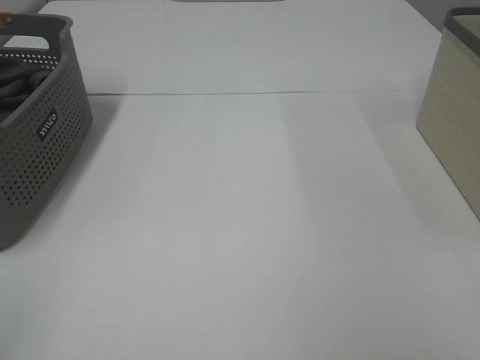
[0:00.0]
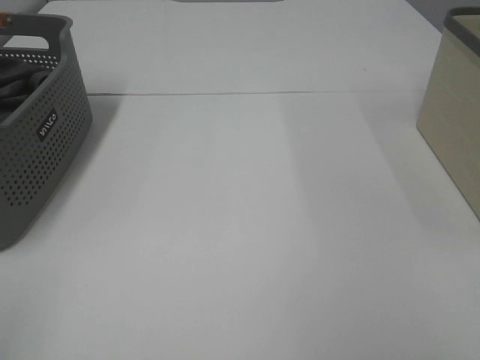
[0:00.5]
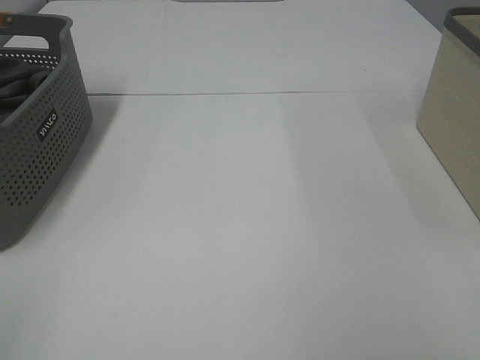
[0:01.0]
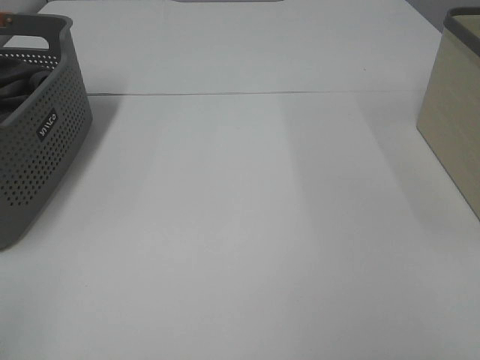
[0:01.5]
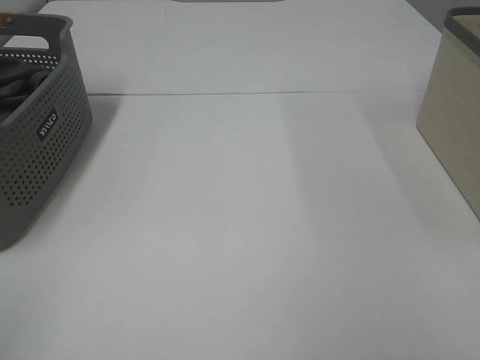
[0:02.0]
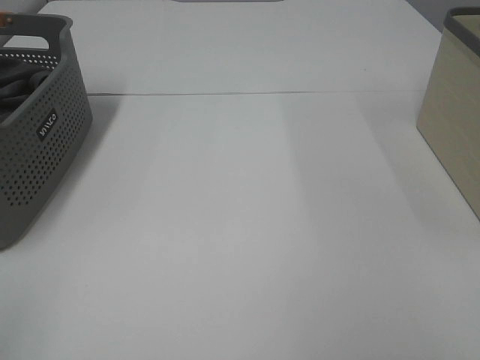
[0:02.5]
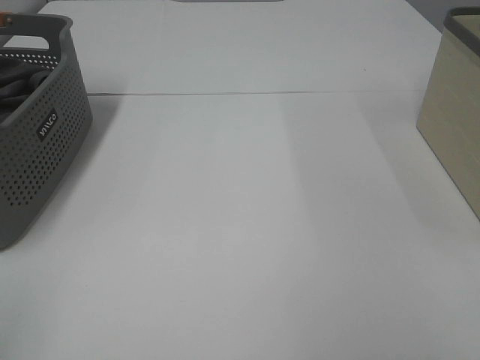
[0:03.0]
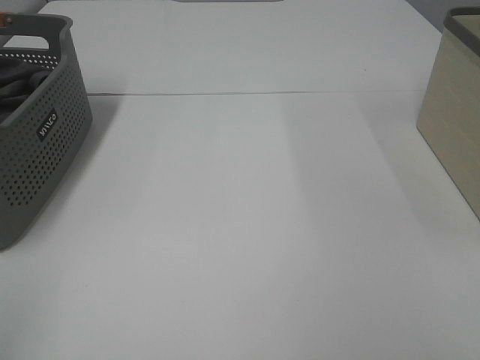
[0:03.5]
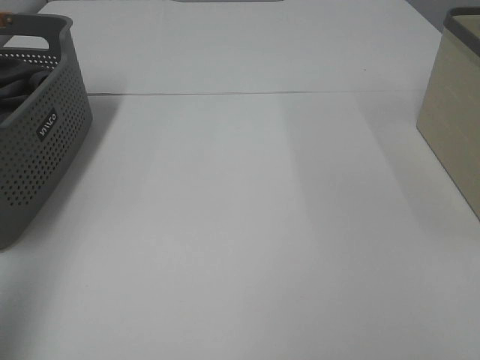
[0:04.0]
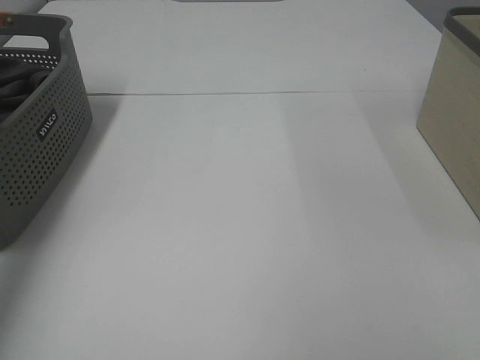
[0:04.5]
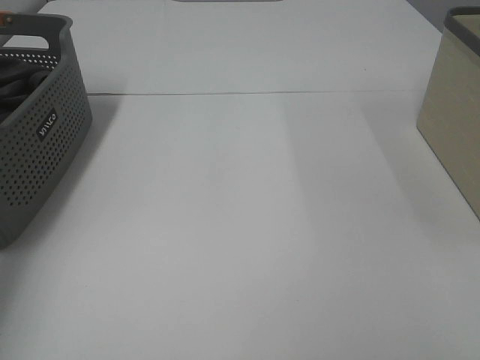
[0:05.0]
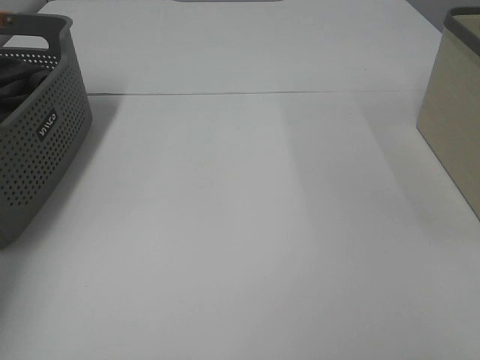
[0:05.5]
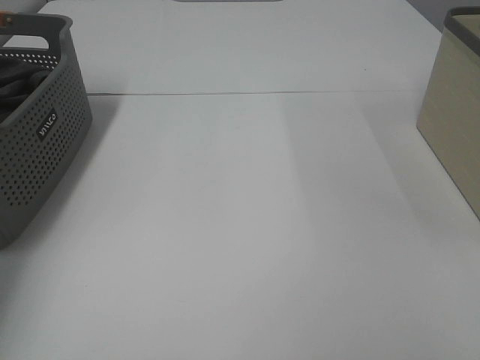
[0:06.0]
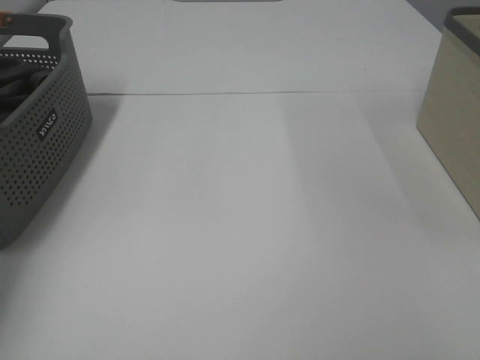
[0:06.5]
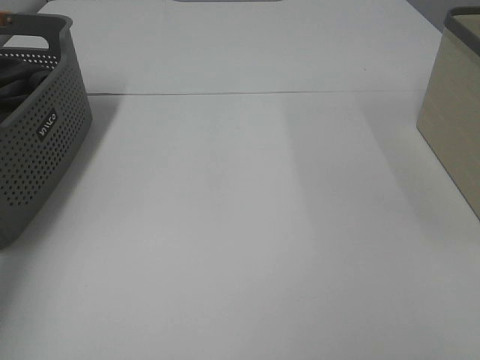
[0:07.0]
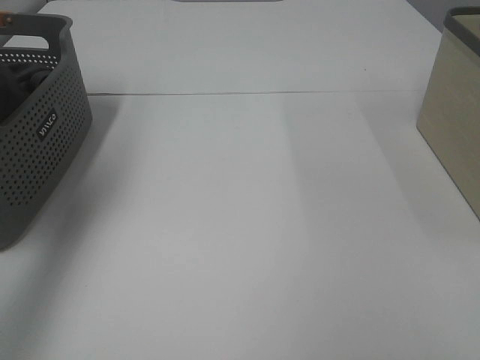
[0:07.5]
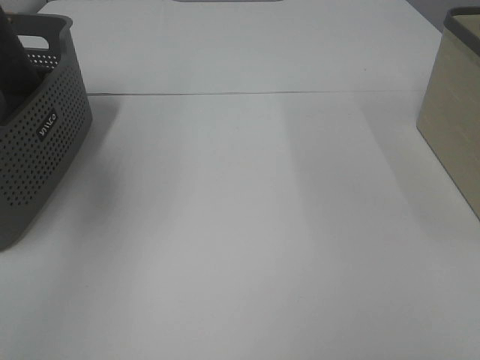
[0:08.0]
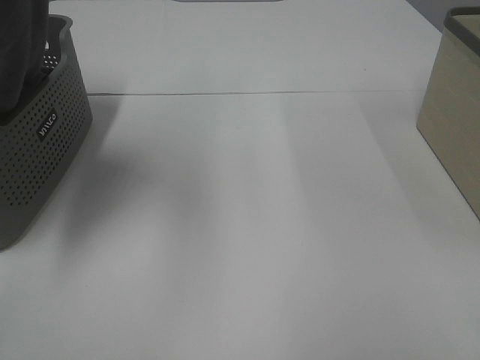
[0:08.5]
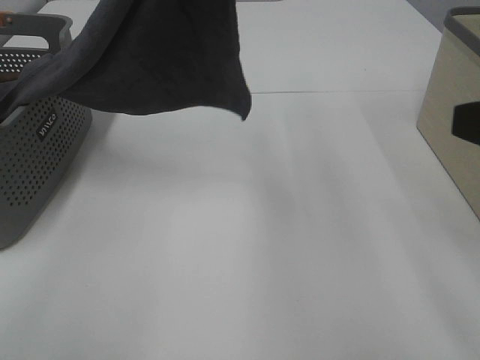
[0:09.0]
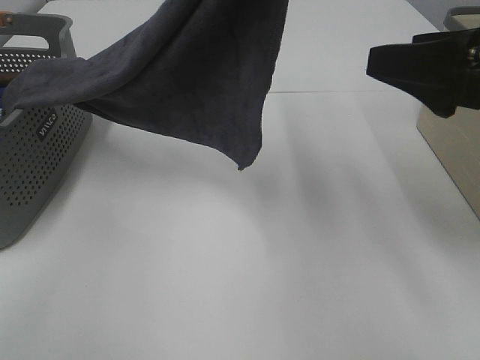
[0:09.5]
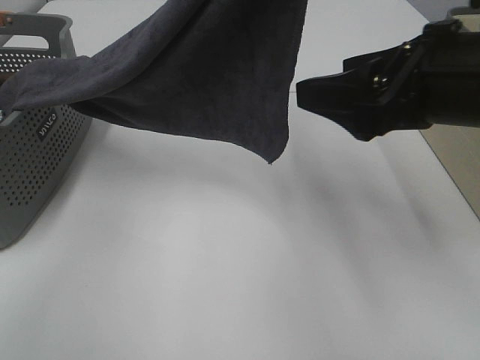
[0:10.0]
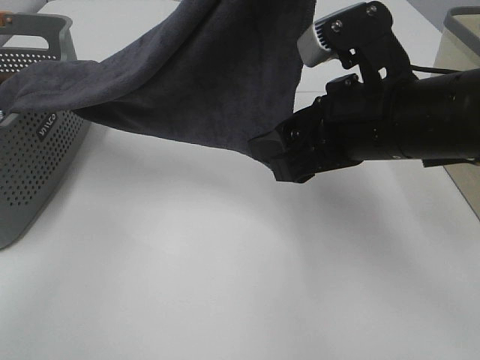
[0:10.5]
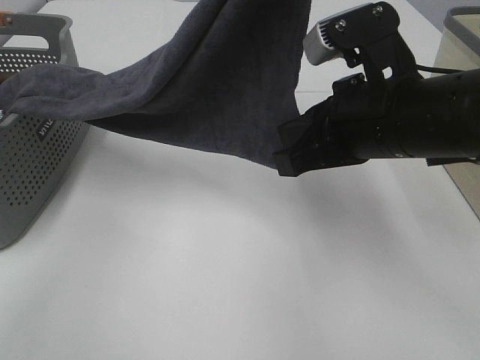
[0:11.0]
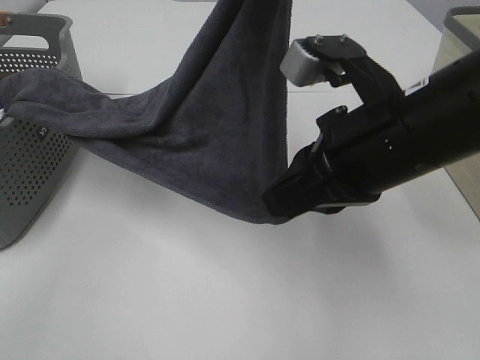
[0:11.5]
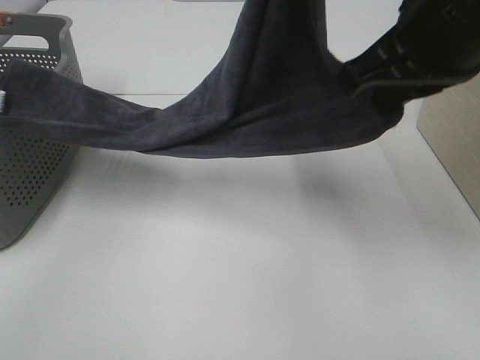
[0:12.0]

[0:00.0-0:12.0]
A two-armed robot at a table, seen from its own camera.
Task of the whole recording: Remove the towel and place it.
Step, 0:08.0 to 0:11.0: Right hand: grab a corner of the grey towel and straighten it.
0:00.0 to 0:02.0: Both grippers stay put.
0:02.0 to 0:04.0: The left gripper travels forward and upward by approximately 15 cm.
0:04.0 to 0:06.0: The left gripper heads forward and downward, covering about 35 cm, and closes up.
0:06.0 to 0:08.0: The left gripper is displaced upward, backward and to the right by approximately 35 cm, and closes up.
0:08.0 to 0:10.0: The left gripper goes some 25 cm to the right; the right gripper shifts some 25 cm forward and to the left.
0:10.0 to 0:12.0: The right gripper shifts roughly 5 cm upward, and closes its fingers.

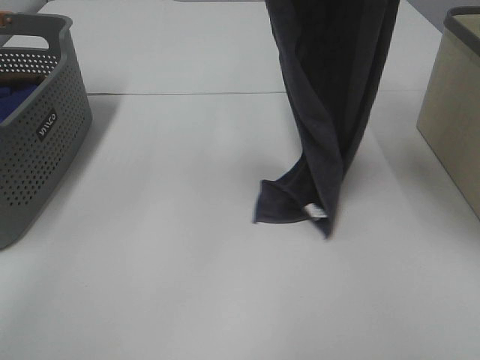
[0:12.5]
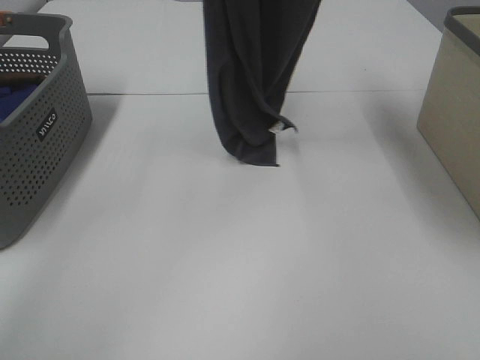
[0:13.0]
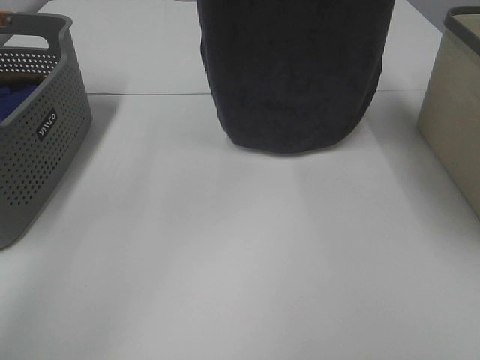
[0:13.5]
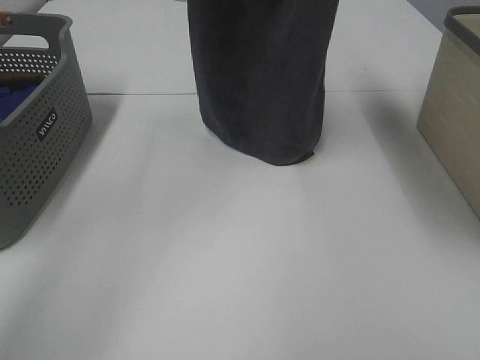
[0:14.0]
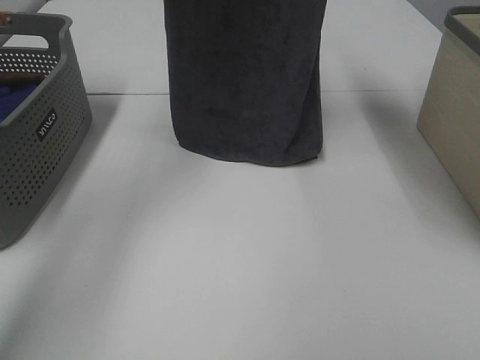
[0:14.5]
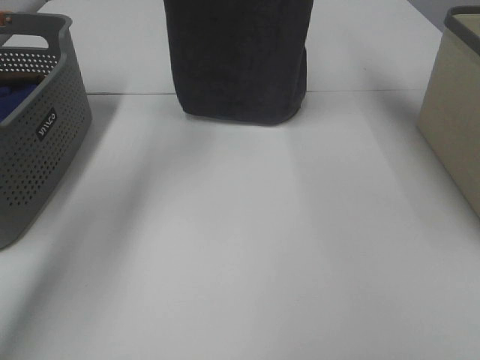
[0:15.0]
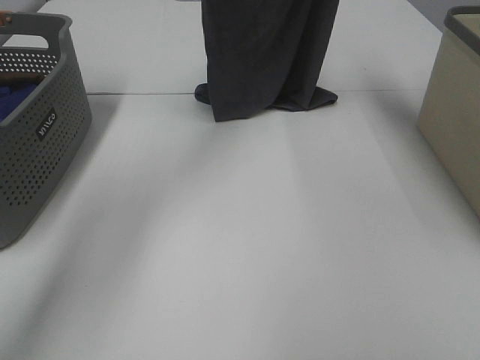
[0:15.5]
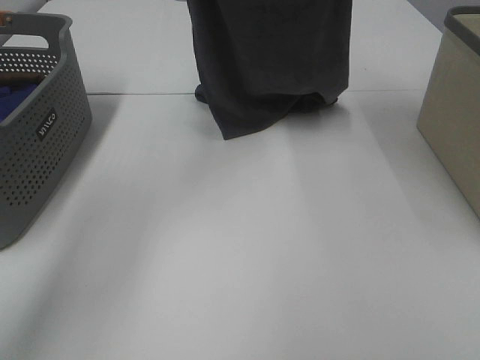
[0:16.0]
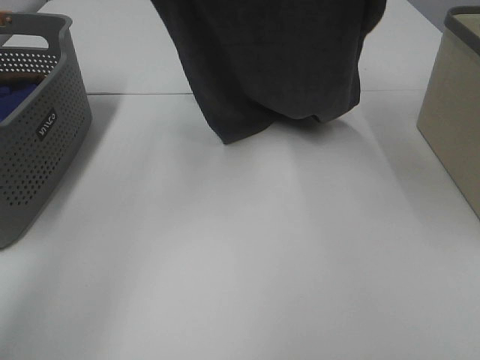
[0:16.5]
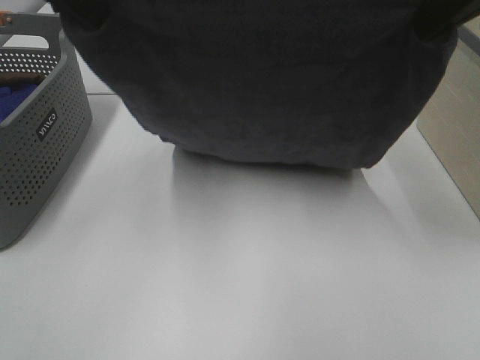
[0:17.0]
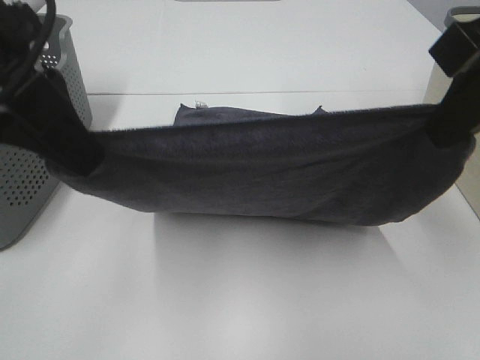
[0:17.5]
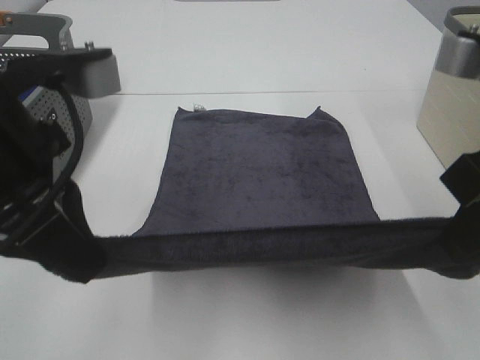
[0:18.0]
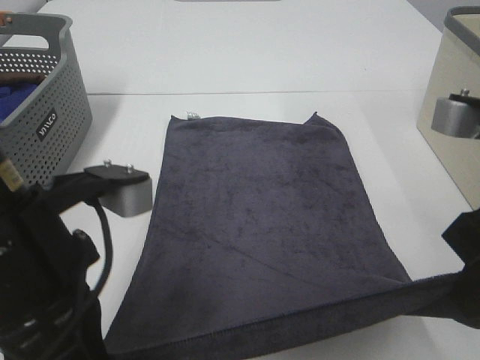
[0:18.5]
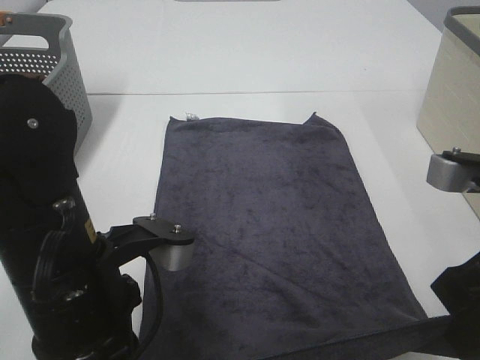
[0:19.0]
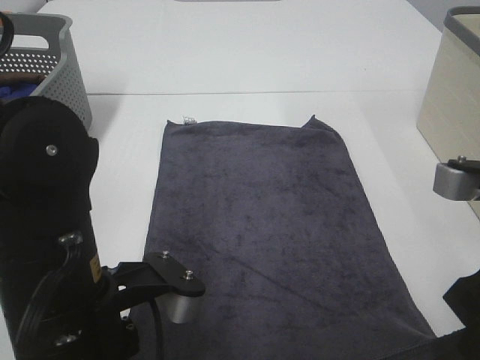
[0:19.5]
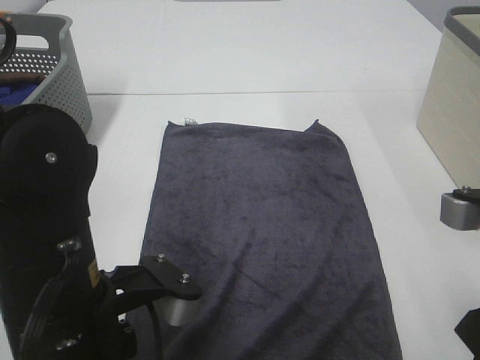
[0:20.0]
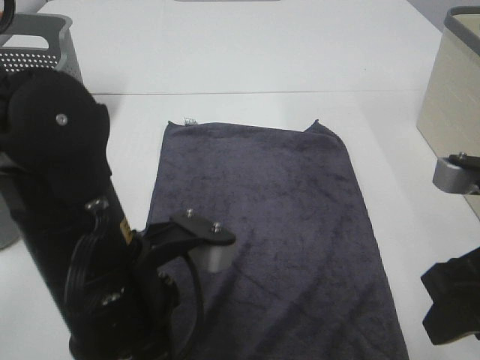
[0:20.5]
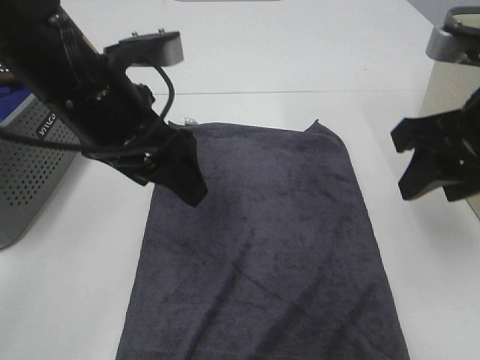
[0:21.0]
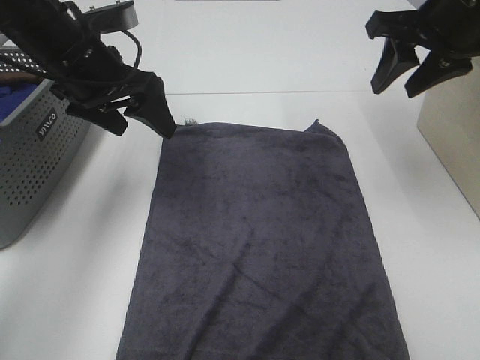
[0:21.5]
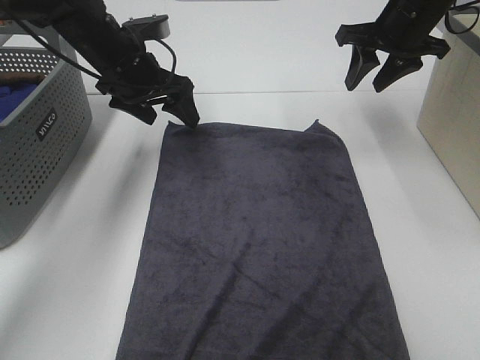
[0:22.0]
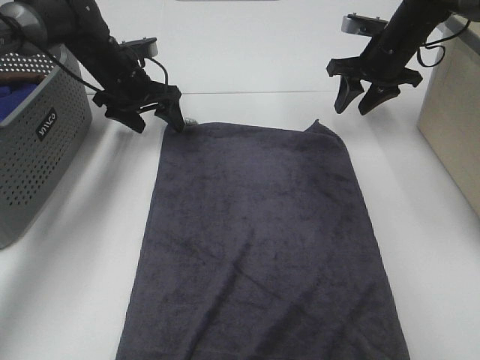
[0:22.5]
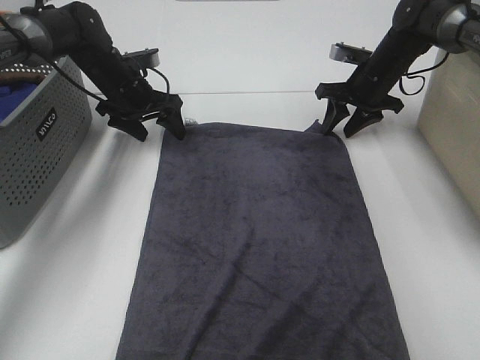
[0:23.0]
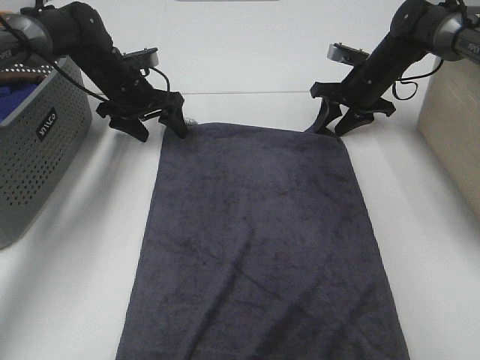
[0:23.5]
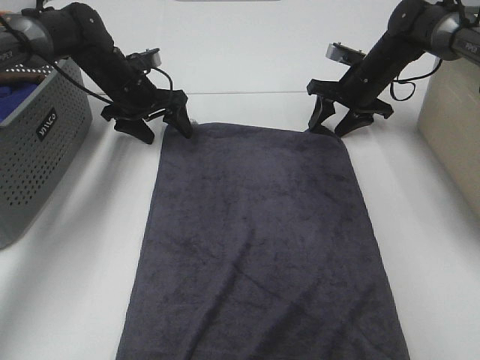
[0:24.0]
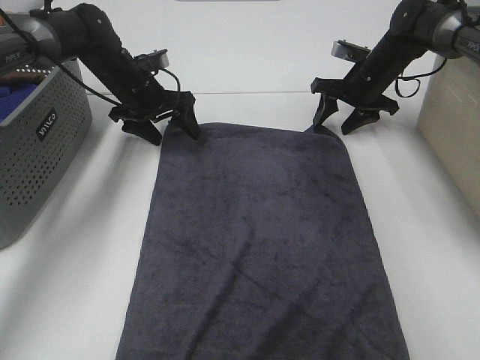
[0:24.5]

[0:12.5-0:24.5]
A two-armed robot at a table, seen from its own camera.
Task of the whole recording: Remove the towel and place it.
Step, 0:12.5 to 0:16.0: Left hand: spread the grey towel flat on the table.
Step, 0:12.5 to 0:16.0: Right hand: spread the grey towel flat on the table.
Step, 0:16.5 to 0:23.0: Left hand:adjust the gray towel.
Step, 0:16.5 to 0:23.0: Right hand:adjust the gray towel.
0:12.5 to 0:14.5: The left gripper moves forward and to the left, roughly 15 cm, while the right gripper goes roughly 15 cm forward.
0:14.5 to 0:16.5: The left gripper moves backward and downward, roughly 10 cm. Meanwhile the right gripper heads downward and backward, covering about 10 cm.
0:16.5 to 0:18.5: Both grippers move backward and downward, roughly 30 cm.
0:18.5 to 0:20.5: The left gripper shifts roughly 5 cm to the right, and opens; the right gripper goes approximately 5 cm downward, and opens its fingers.
0:20.5 to 0:22.5: Both grippers travel together forward, approximately 35 cm.
0:22.5 to 0:24.5: The right gripper moves downward, roughly 5 cm.

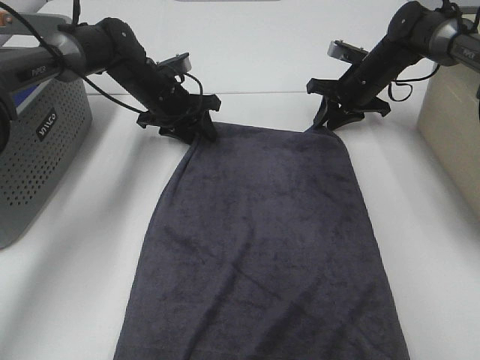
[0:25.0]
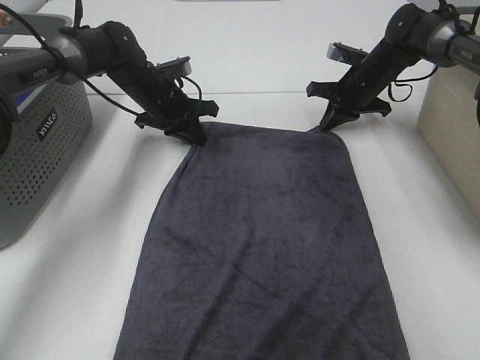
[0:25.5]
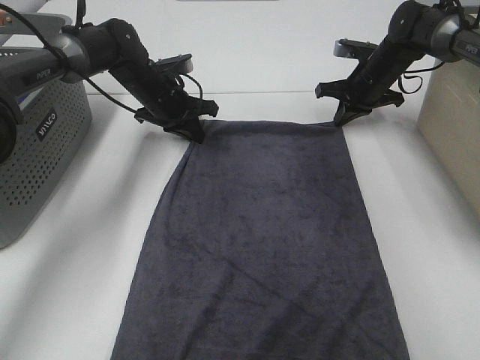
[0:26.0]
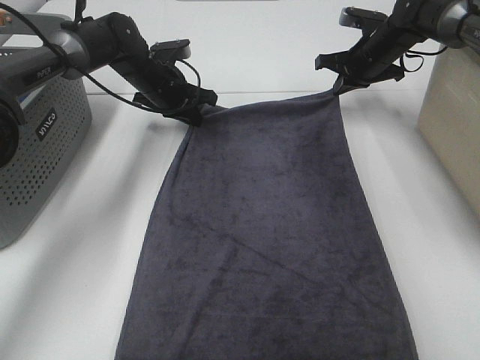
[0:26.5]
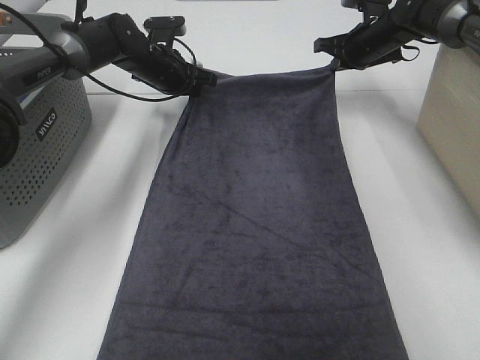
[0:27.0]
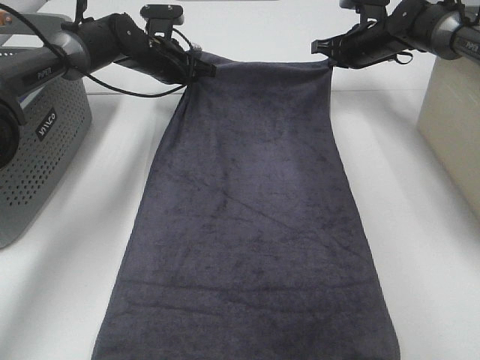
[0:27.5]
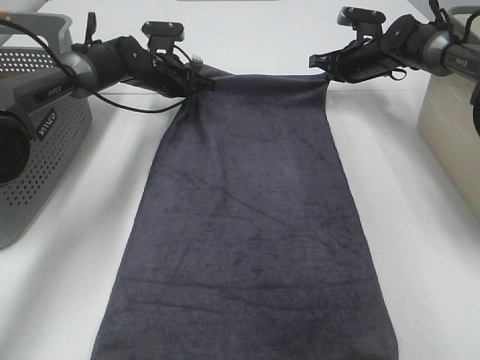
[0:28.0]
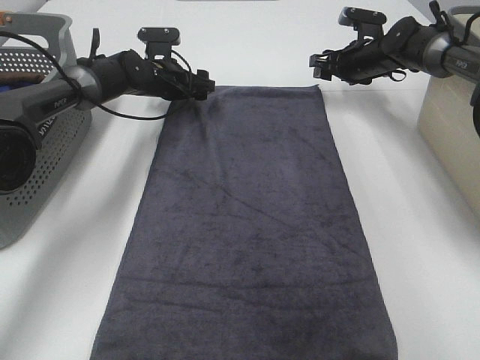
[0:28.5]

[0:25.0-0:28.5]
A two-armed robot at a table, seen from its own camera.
Task of the whole recording: Remove the towel and place it.
0:25.0 to 0:27.0: The right gripper shifts approximately 5 cm upward, and closes up. The left gripper shifts by roughly 5 cm, and closes up.
0:27.0 to 0:28.5: The right gripper opens, while the left gripper opens up.
